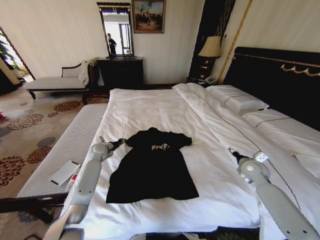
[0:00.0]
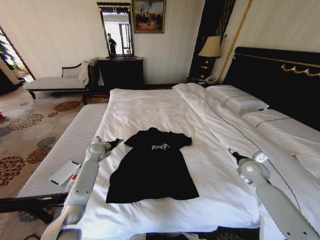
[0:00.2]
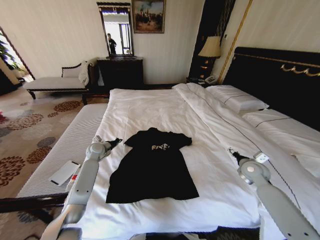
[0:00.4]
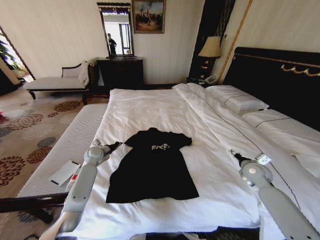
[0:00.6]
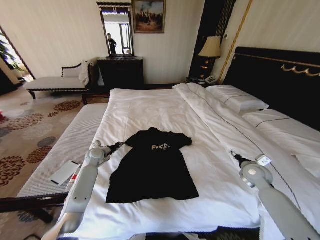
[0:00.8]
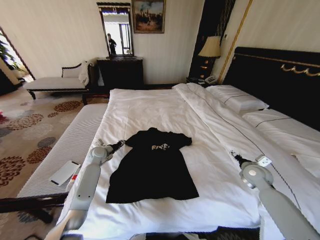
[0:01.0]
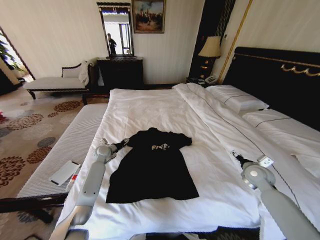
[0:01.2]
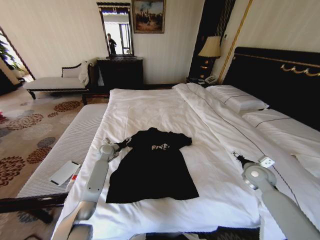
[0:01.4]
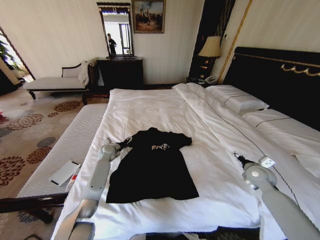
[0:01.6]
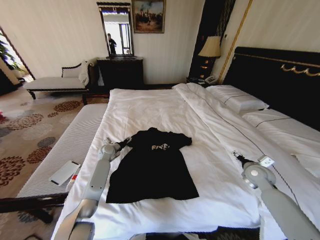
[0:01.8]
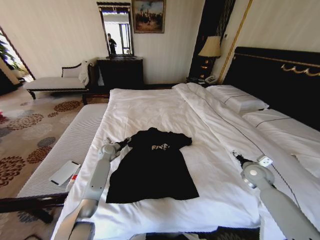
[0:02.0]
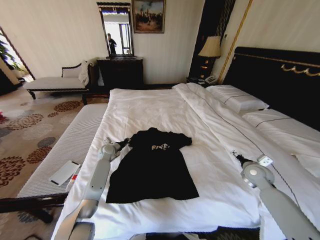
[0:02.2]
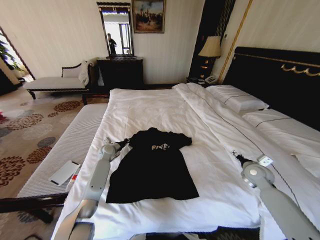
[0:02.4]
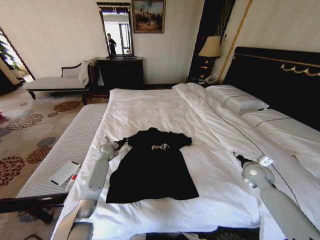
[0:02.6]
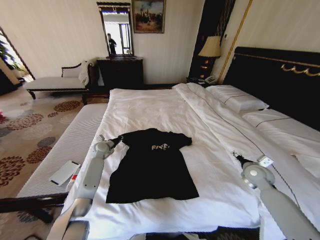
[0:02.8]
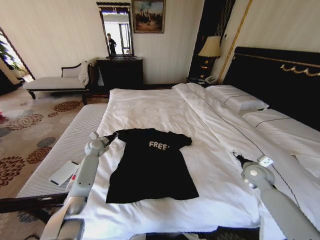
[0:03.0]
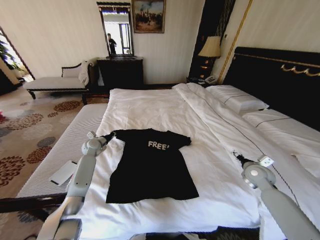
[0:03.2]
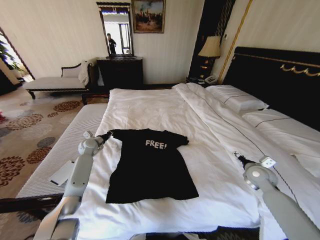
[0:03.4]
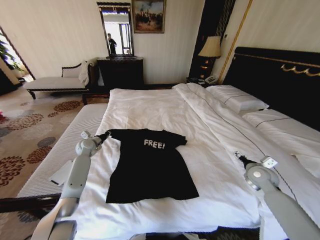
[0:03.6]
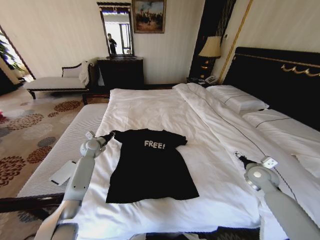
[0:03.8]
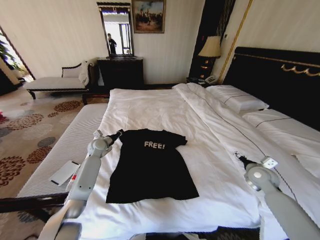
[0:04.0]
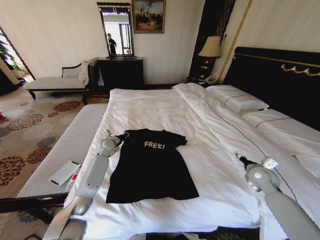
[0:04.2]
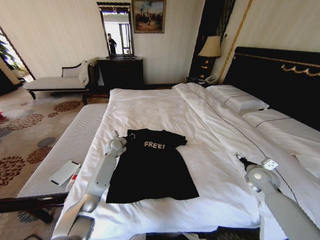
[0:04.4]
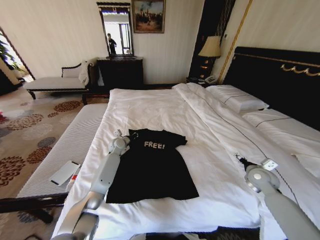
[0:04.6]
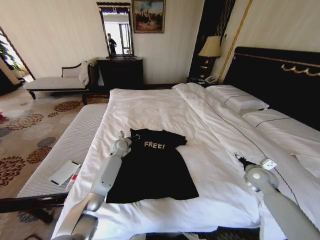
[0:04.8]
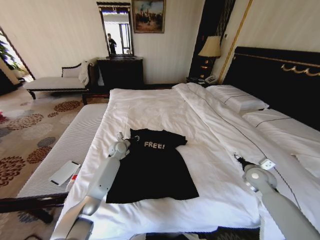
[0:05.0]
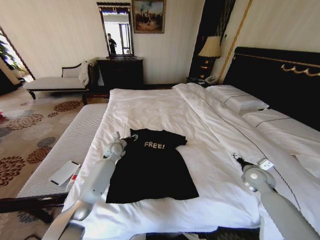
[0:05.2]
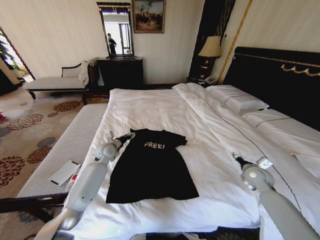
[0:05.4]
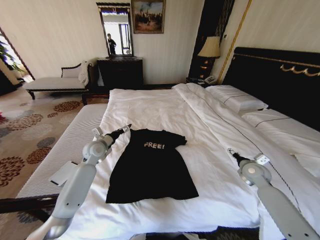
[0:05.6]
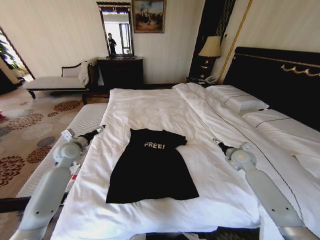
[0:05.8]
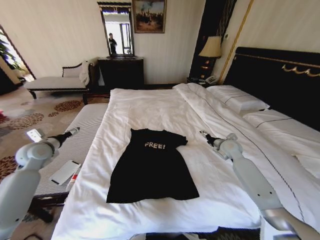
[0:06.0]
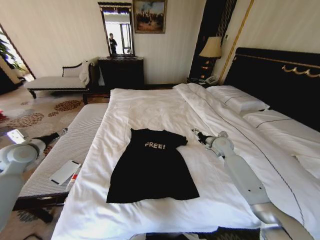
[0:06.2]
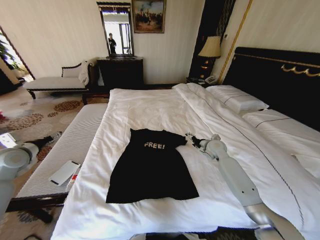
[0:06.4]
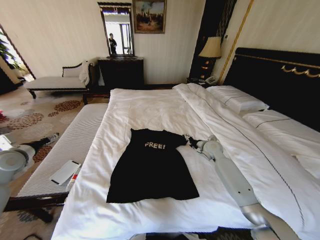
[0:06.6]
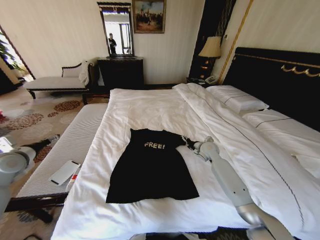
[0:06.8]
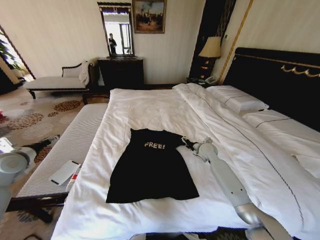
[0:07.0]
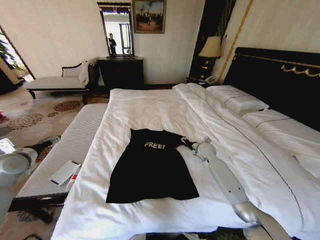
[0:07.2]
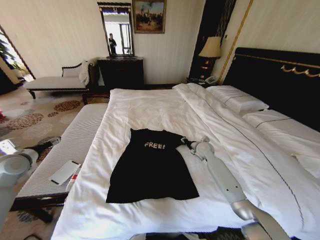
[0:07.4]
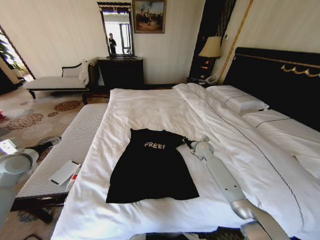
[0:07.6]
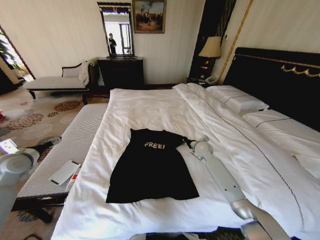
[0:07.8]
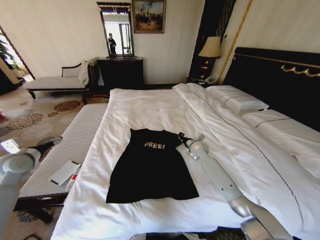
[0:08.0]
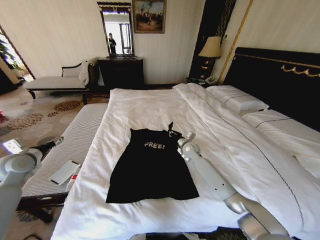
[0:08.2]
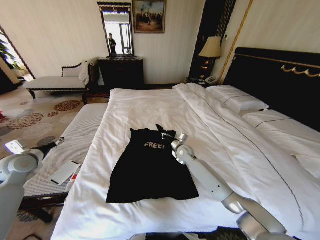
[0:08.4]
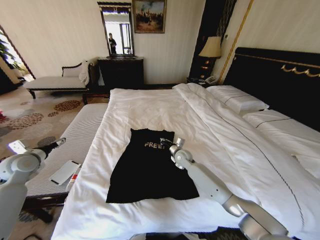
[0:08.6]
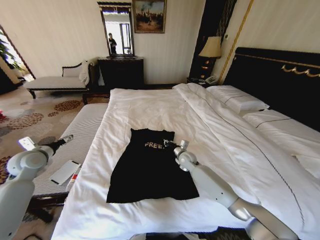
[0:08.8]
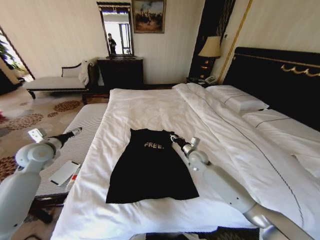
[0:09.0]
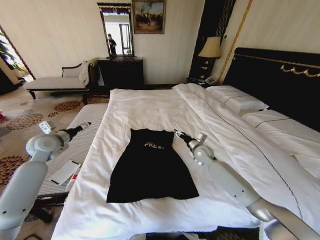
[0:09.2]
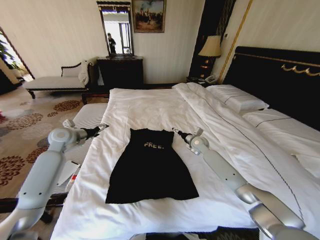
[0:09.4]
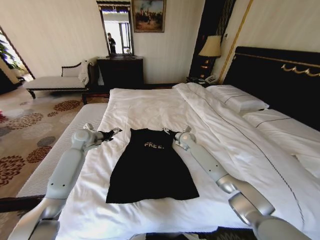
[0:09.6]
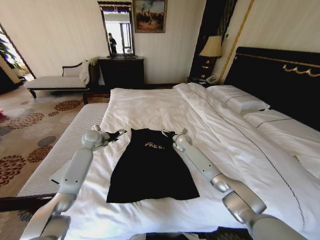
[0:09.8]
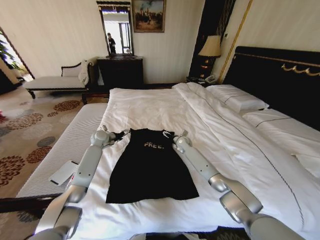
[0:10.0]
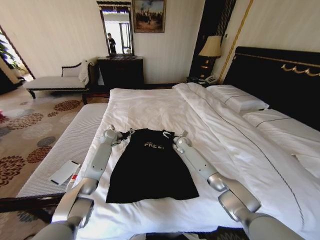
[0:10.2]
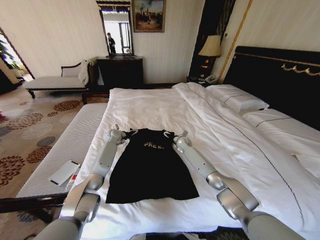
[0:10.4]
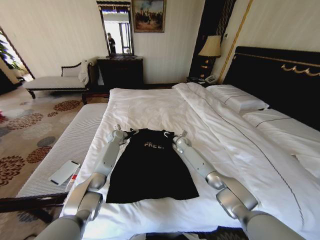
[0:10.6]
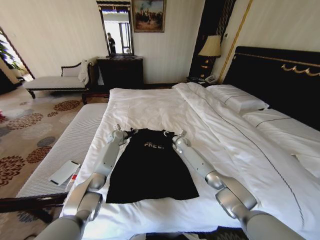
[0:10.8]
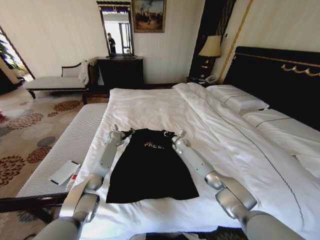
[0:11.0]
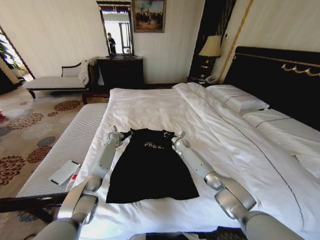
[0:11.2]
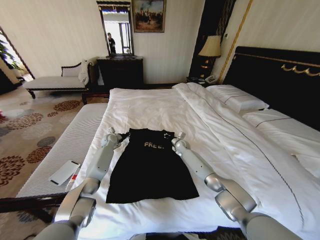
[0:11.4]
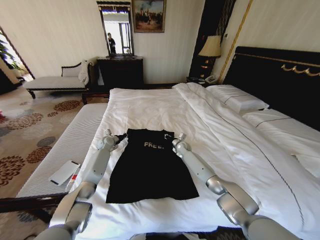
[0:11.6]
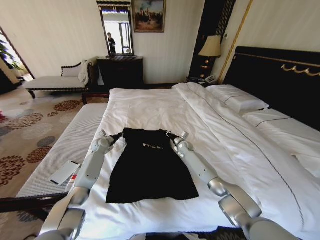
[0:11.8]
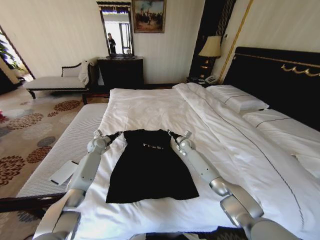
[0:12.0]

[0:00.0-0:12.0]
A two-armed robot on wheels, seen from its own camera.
Task of the whole recording: Fold the clothes on the bed.
0.0 to 1.6 s: The left gripper opens its fingers.
1.6 to 3.0 s: The left gripper moves to the left, about 5 cm, and closes its fingers.
3.0 to 4.4 s: The left gripper shifts some 10 cm to the right.
4.4 to 6.0 s: The left gripper heads to the left, backward and upward, covering about 30 cm, and opens its fingers. Meanwhile the right gripper moves forward and to the left, approximately 15 cm.
6.0 to 7.6 s: The right gripper is displaced to the left by about 10 cm, and closes, while the left gripper shifts some 5 cm backward.
7.6 to 9.0 s: The right gripper goes approximately 5 cm backward. Meanwhile the left gripper goes approximately 10 cm to the right and forward.
9.0 to 10.4 s: The right gripper shifts some 15 cm forward, and opens its fingers. The left gripper is displaced forward, to the right and downward by approximately 35 cm.
10.4 to 12.0 s: The left gripper is displaced to the left and backward by approximately 10 cm, and closes. The right gripper closes up.

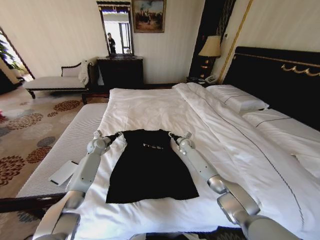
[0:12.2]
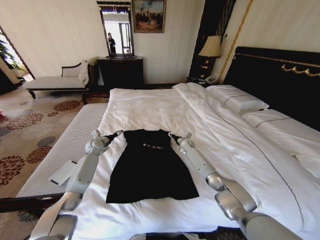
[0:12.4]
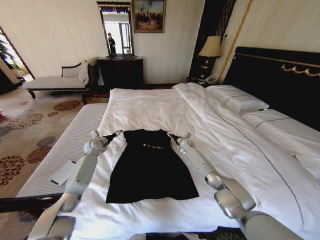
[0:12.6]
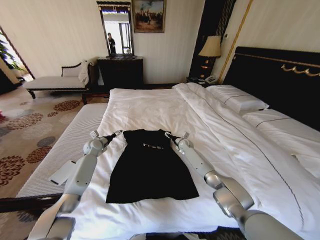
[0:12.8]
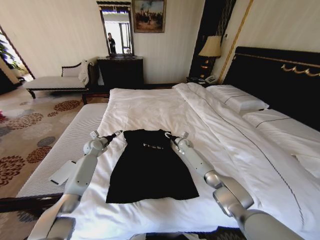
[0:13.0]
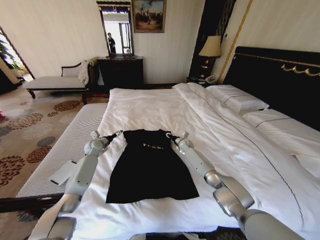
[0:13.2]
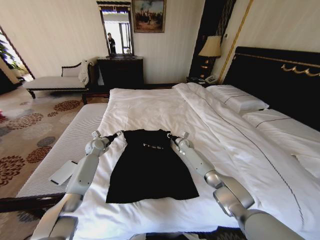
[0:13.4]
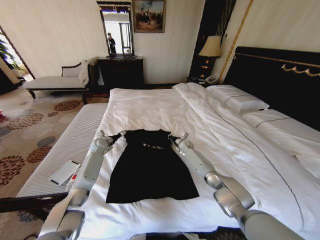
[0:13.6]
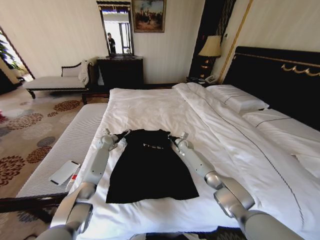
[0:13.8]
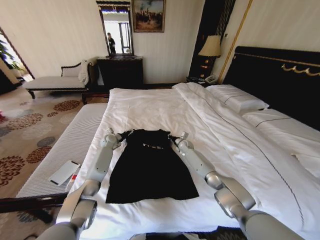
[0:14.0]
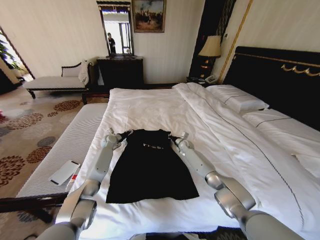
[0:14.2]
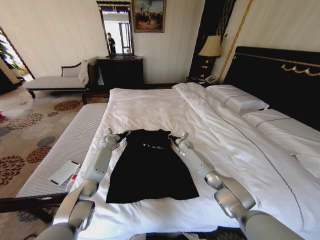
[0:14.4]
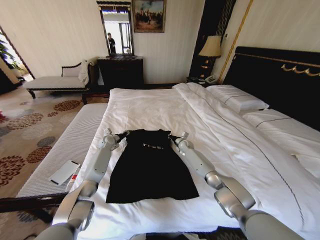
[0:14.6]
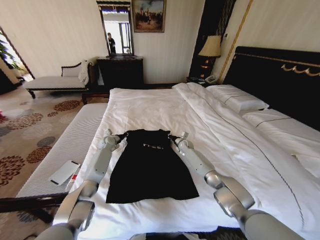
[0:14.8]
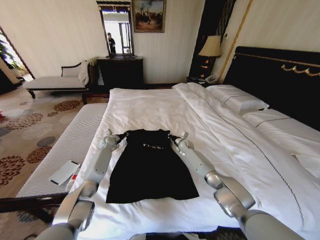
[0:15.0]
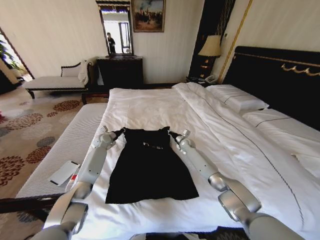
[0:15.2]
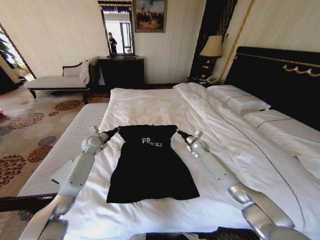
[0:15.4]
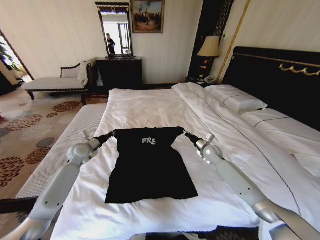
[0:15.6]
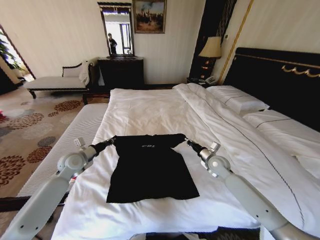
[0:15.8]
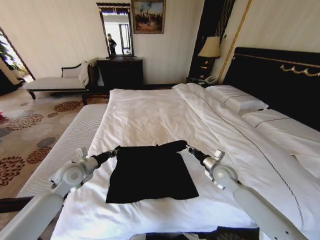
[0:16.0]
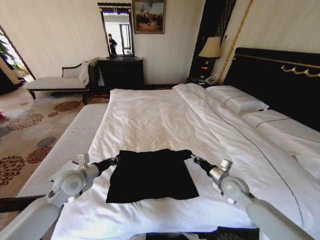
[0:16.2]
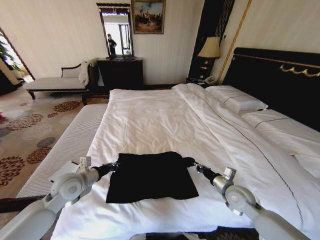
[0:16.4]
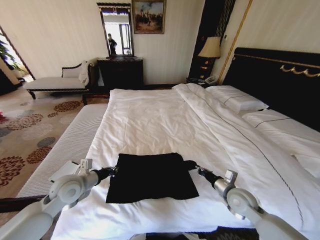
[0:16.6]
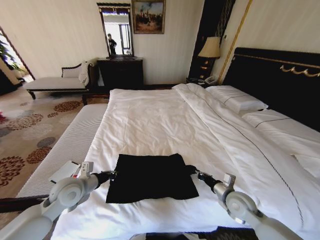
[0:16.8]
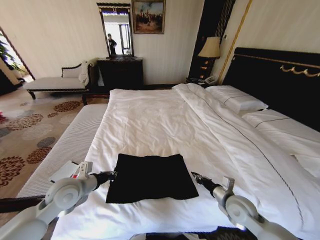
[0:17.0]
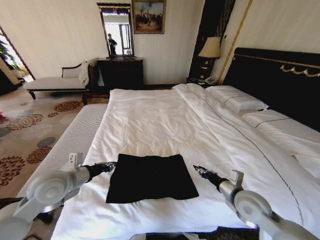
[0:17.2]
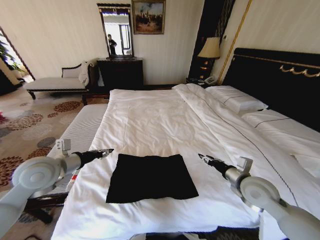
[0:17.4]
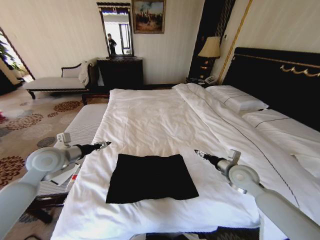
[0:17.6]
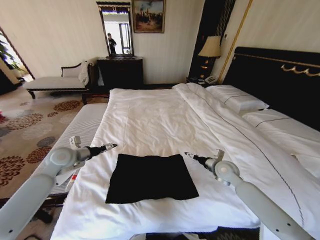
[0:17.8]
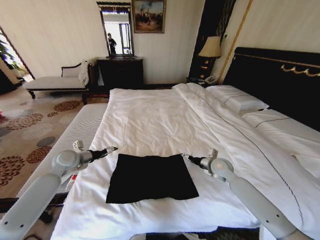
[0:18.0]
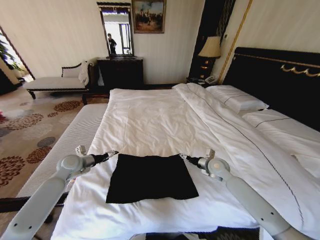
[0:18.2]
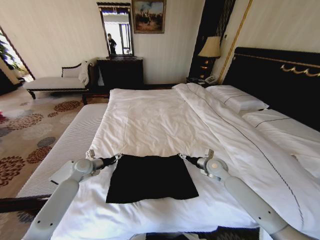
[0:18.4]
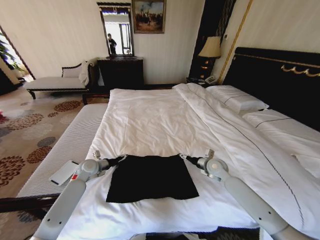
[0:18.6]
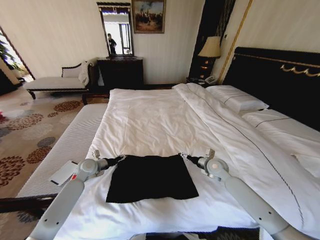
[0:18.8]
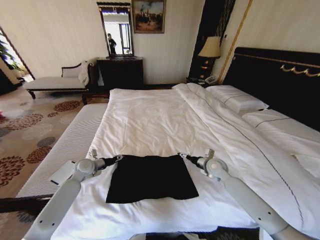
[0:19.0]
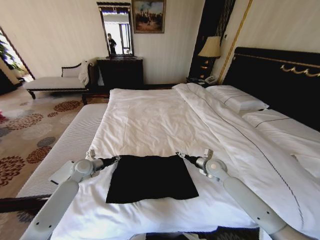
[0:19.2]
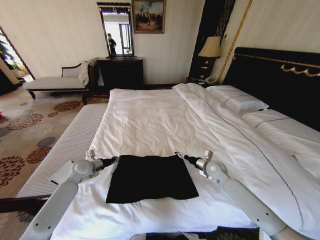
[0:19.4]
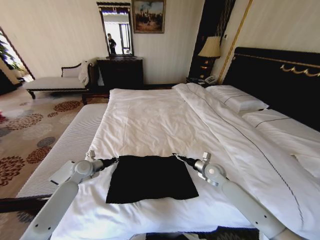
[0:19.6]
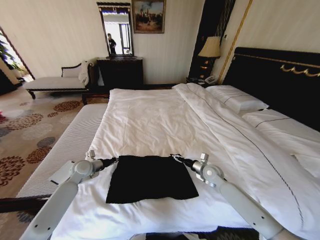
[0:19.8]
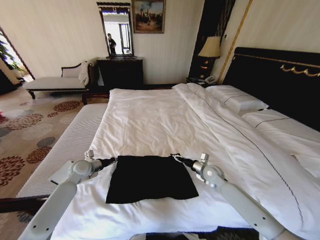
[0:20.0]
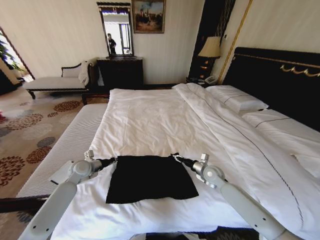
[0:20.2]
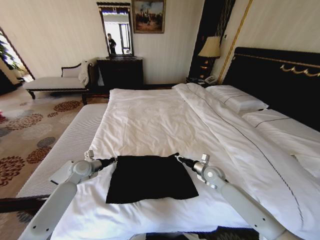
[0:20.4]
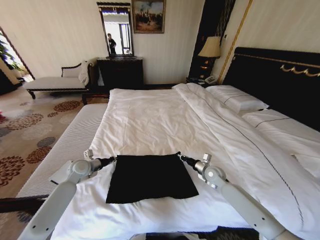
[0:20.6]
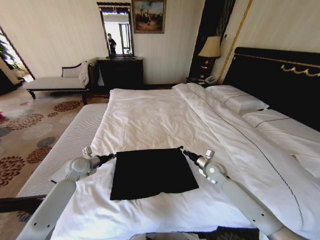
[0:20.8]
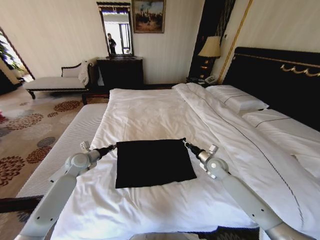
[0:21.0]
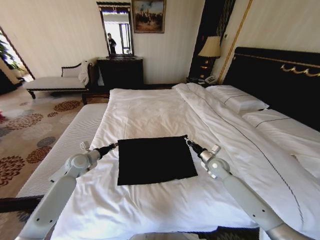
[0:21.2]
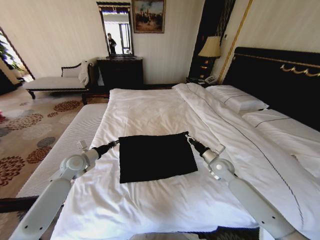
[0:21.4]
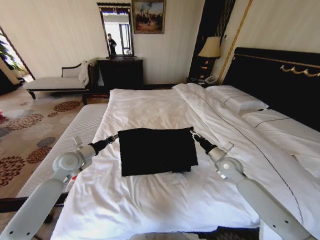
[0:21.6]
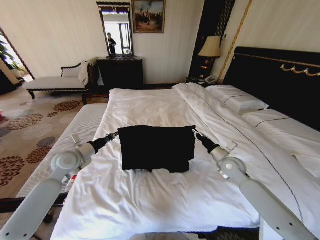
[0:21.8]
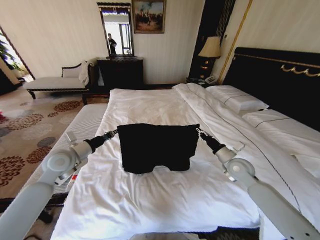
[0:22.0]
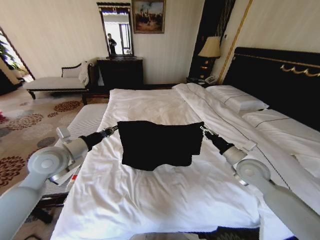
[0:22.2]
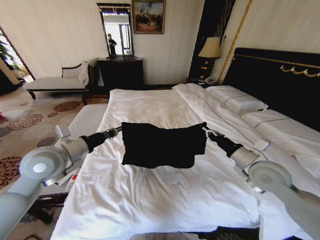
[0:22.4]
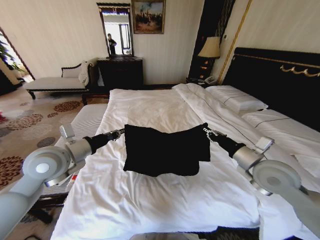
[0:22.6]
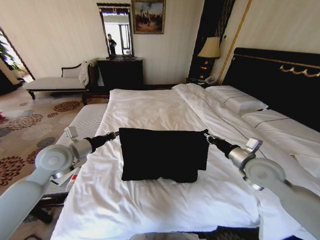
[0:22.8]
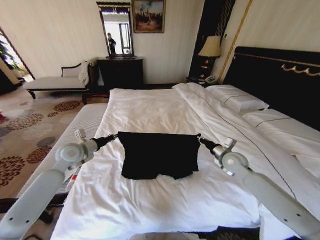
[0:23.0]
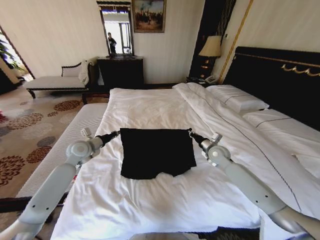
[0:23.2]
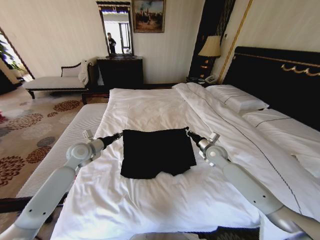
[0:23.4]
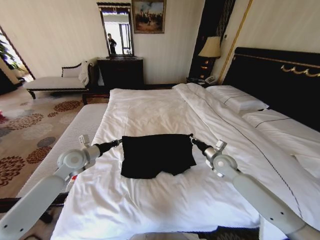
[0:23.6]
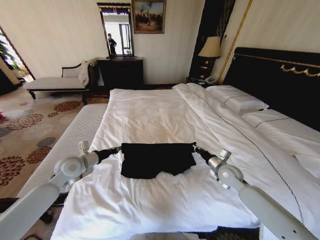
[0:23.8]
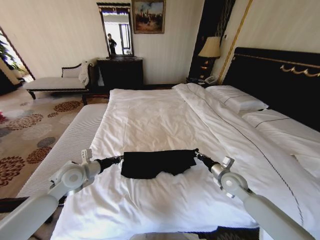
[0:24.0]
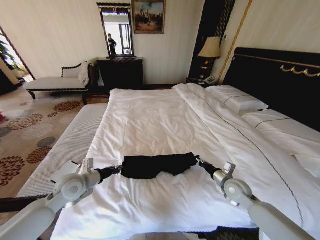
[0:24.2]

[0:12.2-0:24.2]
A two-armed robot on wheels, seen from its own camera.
Task of the whole recording: Fold the clothes on the bed.
12.2 to 13.8 s: The left gripper shifts by approximately 5 cm, and opens up. Meanwhile the right gripper closes up.
13.8 to 15.2 s: The left gripper closes.
15.2 to 16.6 s: Both grippers travel together backward, some 30 cm.
16.6 to 18.2 s: The left gripper moves forward and to the left, some 15 cm, travels upward and back again, some 10 cm each way, and opens up. Meanwhile the right gripper goes about 15 cm forward, and opens.
18.2 to 19.8 s: The left gripper closes up.
19.8 to 21.2 s: The right gripper closes its fingers.
21.2 to 22.6 s: The grippers both shift upward and backward by about 25 cm.
22.6 to 24.2 s: The grippers both shift downward by about 15 cm.
